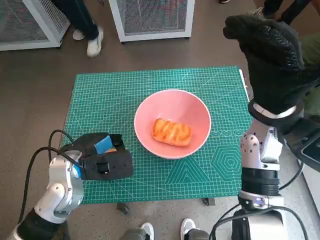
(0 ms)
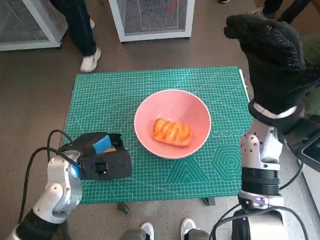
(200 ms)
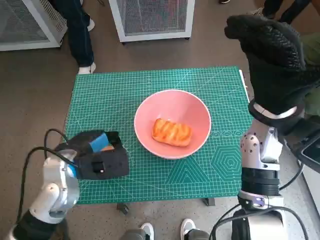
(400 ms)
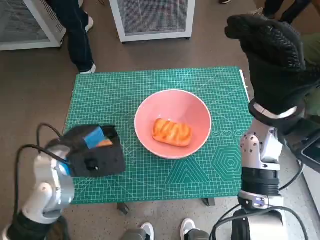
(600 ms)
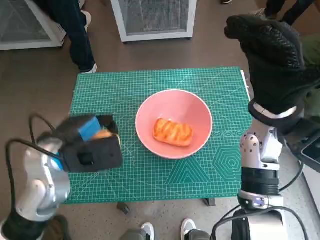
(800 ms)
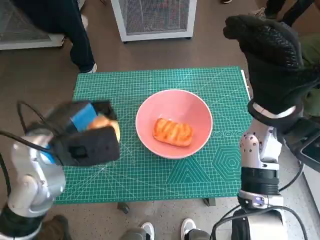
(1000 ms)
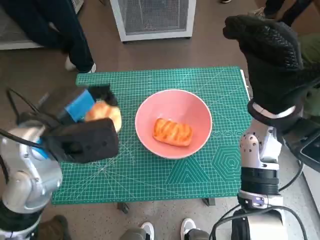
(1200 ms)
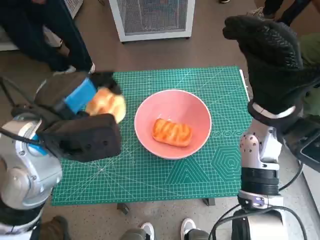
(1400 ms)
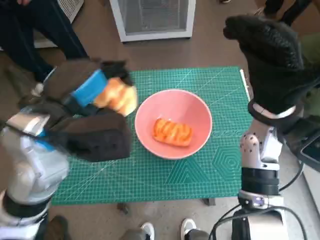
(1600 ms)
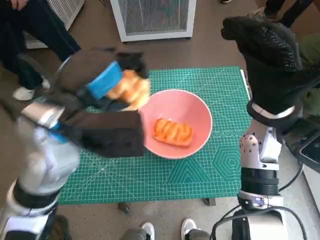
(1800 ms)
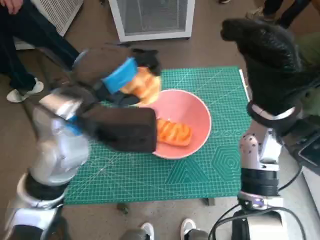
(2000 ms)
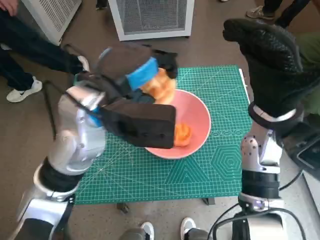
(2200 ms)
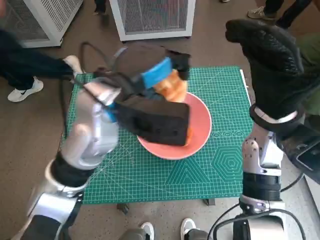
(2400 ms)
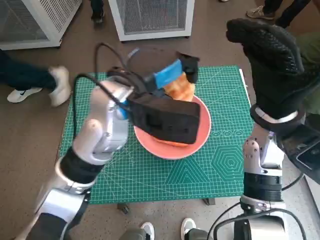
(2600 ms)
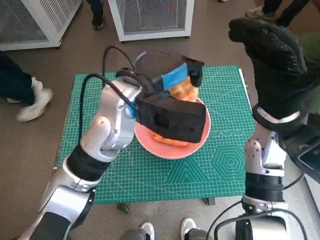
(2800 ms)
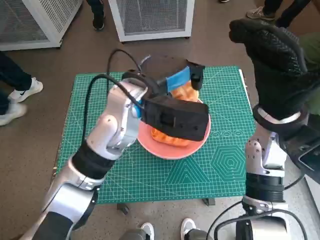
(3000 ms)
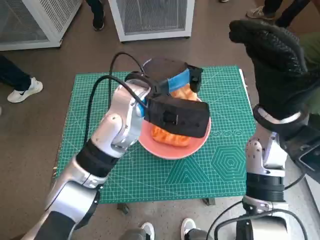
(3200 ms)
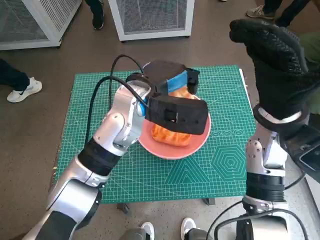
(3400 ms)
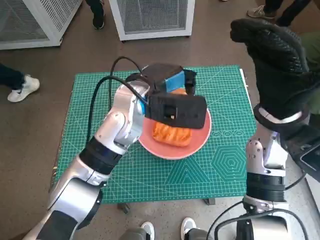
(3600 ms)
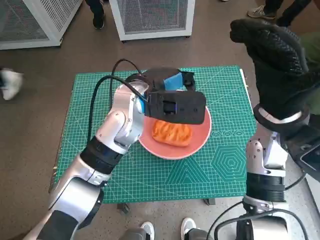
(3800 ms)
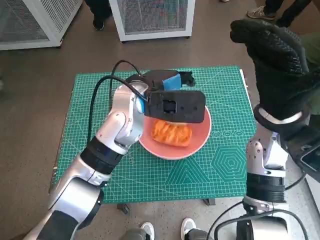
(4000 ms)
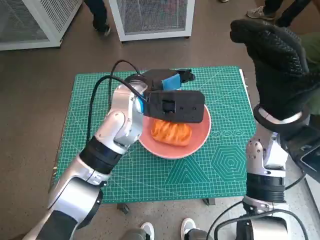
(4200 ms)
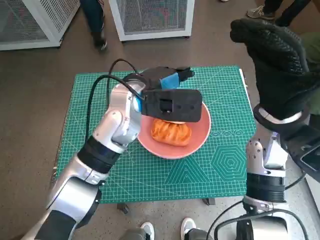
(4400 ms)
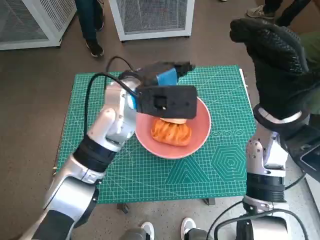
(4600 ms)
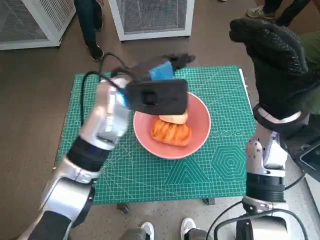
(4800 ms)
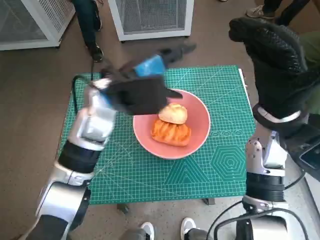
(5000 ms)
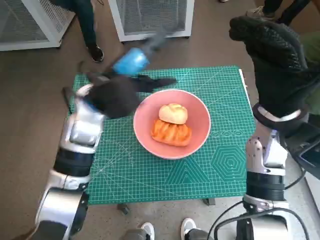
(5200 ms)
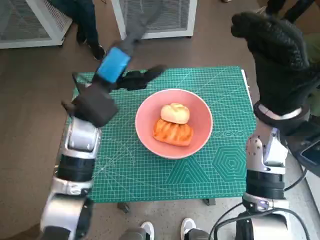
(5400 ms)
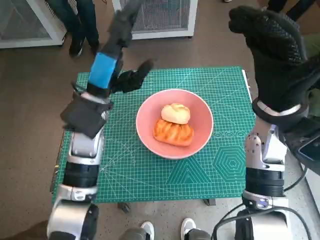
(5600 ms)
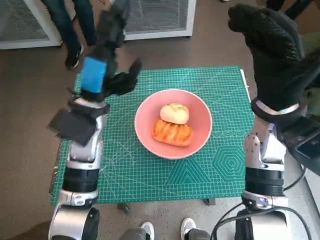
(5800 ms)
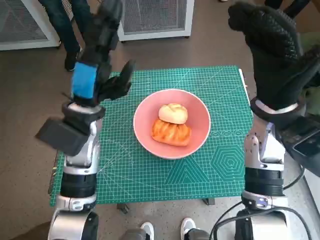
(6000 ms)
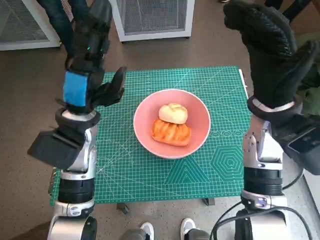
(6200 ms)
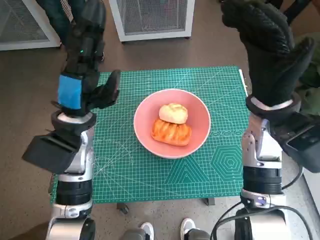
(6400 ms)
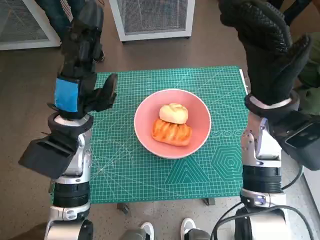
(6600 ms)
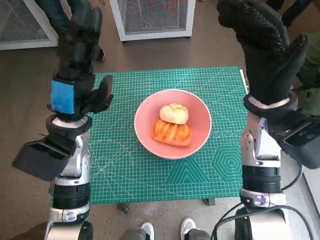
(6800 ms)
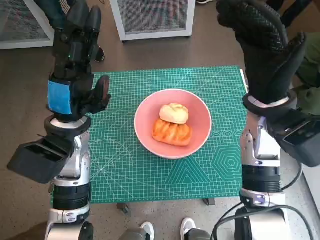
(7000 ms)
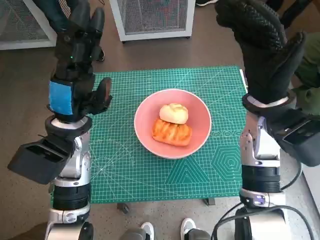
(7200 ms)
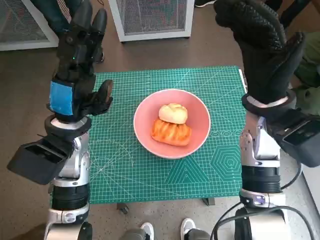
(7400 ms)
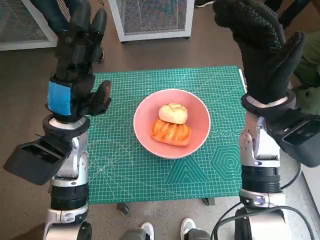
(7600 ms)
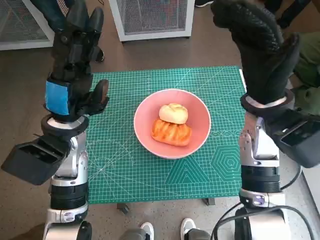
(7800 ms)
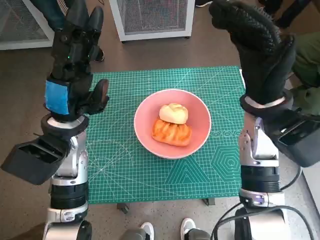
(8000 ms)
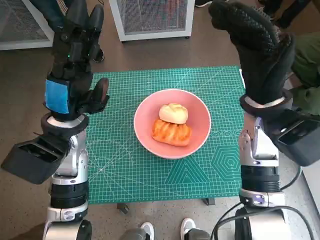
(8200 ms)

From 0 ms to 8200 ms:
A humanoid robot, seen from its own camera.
Task of the whole recording: Push the bowl into the center of the table and put the bread into the bowl.
Step, from 0 ms to 3800 ms: Place the round bread in pink bowl with left hand.
From 0 ms to 1600 ms: The left hand is displaced upward by approximately 15 cm.
From 1600 ms to 3200 ms: The left hand moves to the right and forward, approximately 15 cm.
From 5000 ms to 6600 ms: The left hand is displaced to the left and backward by approximately 10 cm.
From 6600 ms to 8200 ms: Both hands stay about where they are.

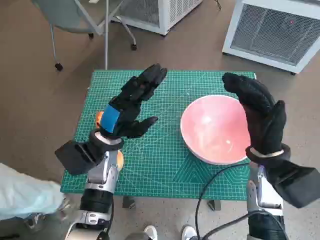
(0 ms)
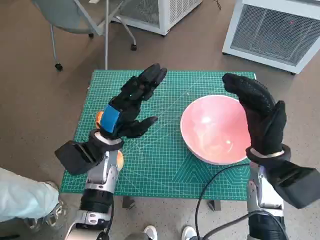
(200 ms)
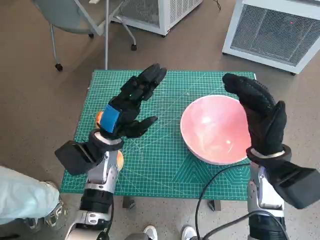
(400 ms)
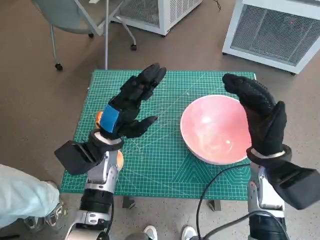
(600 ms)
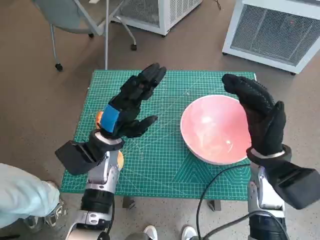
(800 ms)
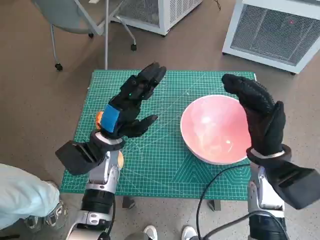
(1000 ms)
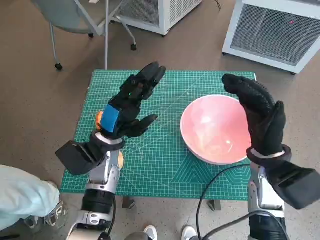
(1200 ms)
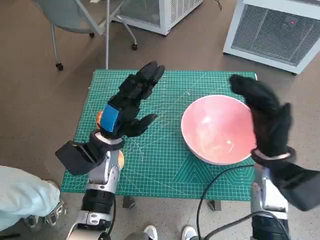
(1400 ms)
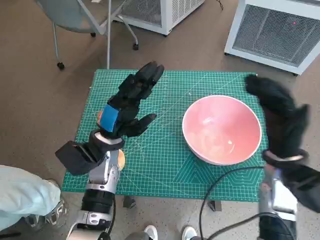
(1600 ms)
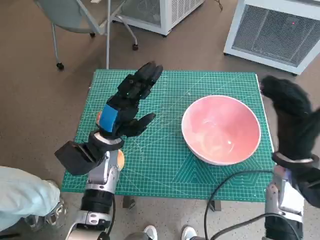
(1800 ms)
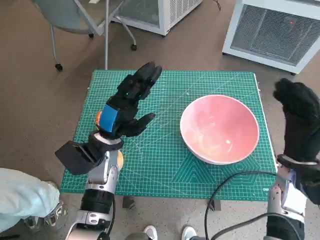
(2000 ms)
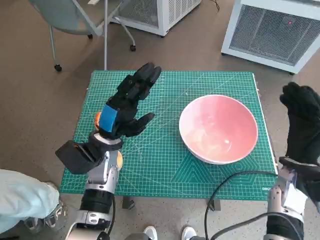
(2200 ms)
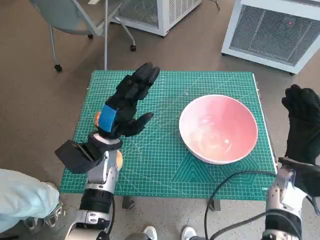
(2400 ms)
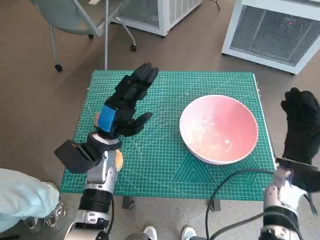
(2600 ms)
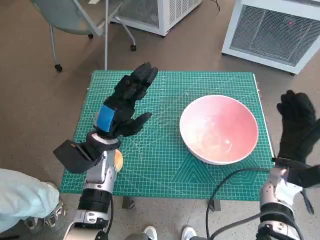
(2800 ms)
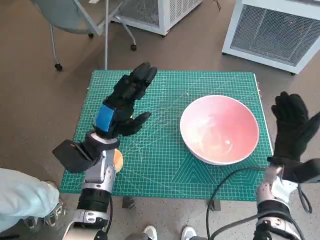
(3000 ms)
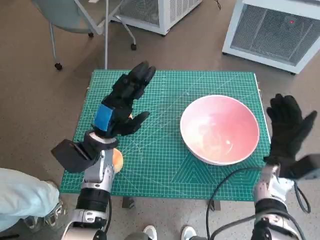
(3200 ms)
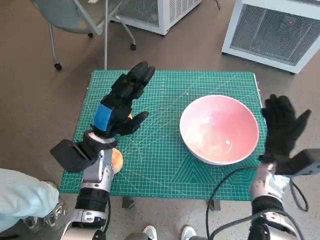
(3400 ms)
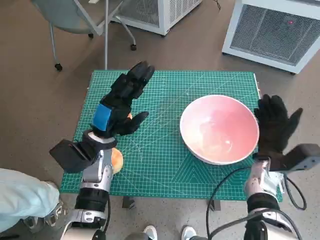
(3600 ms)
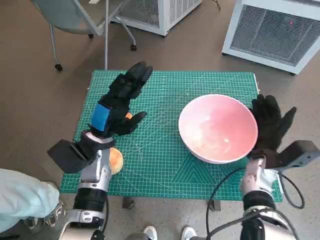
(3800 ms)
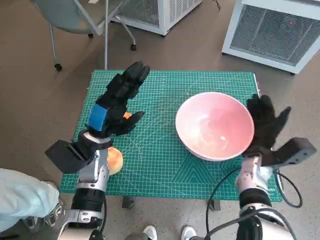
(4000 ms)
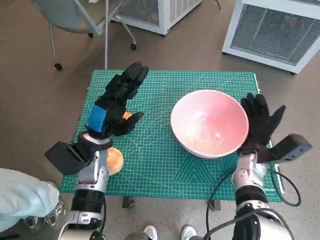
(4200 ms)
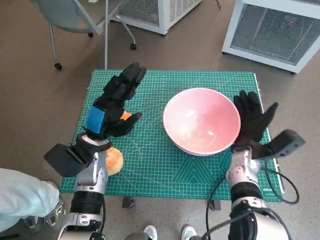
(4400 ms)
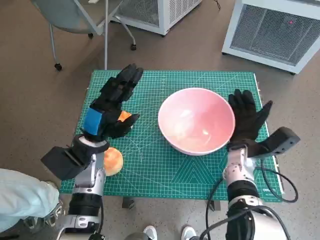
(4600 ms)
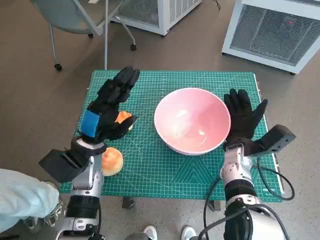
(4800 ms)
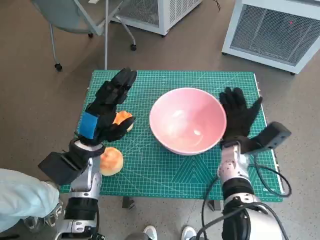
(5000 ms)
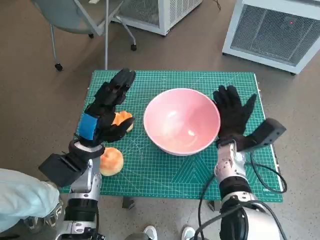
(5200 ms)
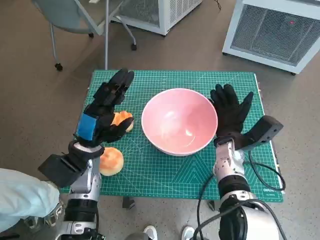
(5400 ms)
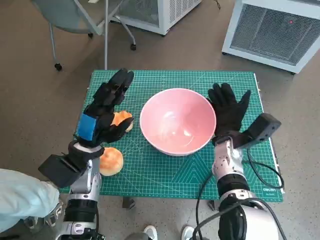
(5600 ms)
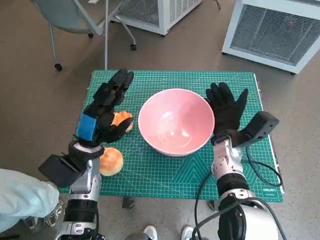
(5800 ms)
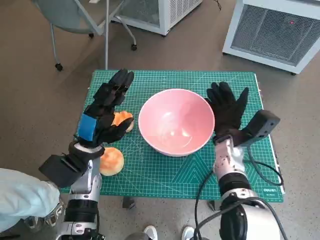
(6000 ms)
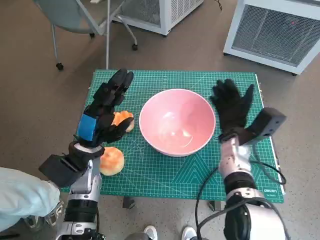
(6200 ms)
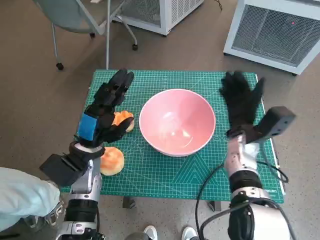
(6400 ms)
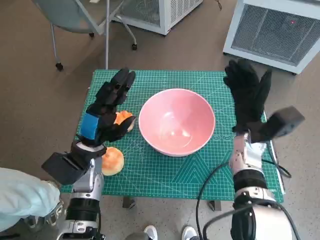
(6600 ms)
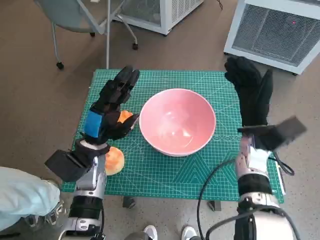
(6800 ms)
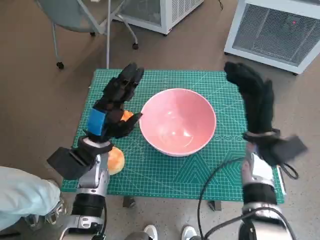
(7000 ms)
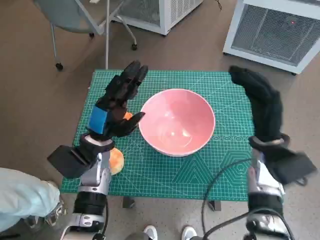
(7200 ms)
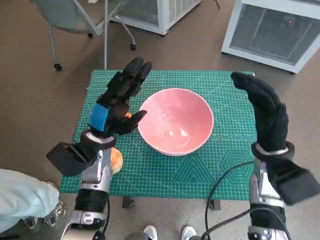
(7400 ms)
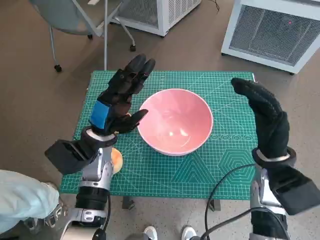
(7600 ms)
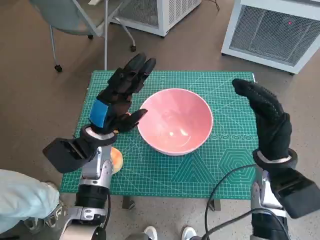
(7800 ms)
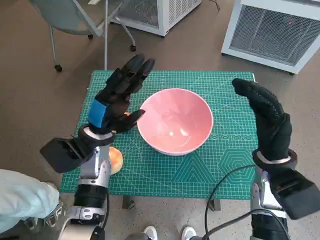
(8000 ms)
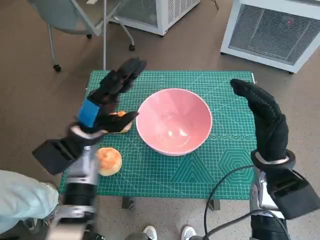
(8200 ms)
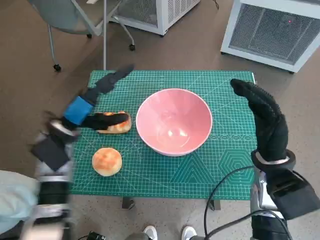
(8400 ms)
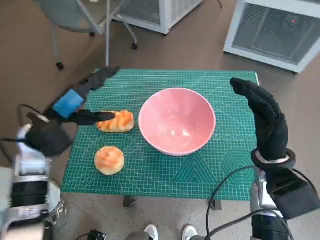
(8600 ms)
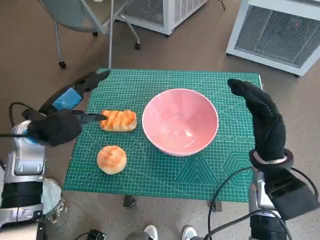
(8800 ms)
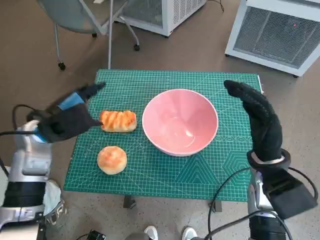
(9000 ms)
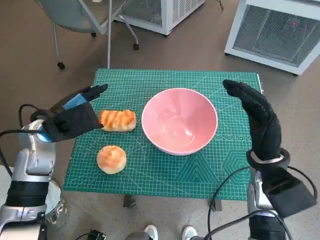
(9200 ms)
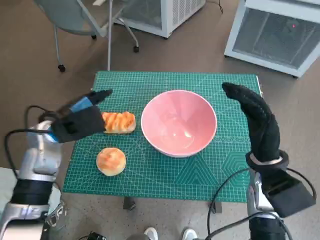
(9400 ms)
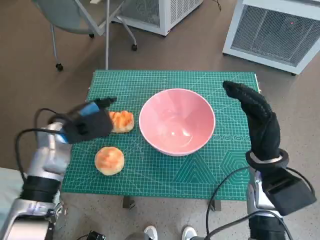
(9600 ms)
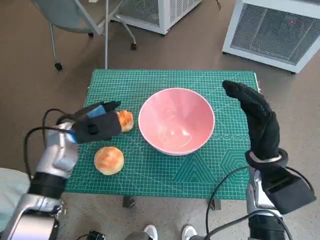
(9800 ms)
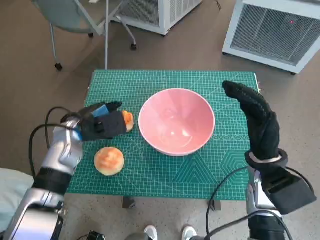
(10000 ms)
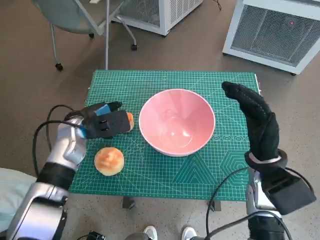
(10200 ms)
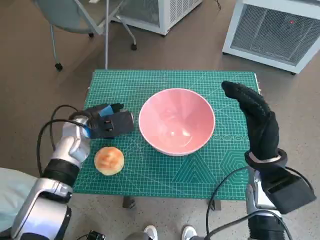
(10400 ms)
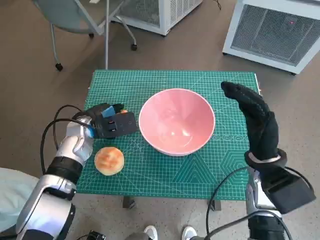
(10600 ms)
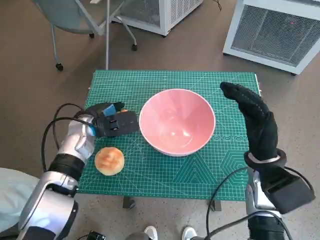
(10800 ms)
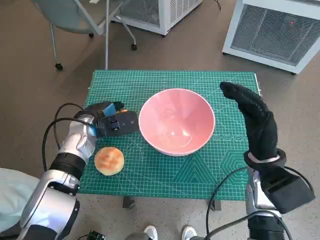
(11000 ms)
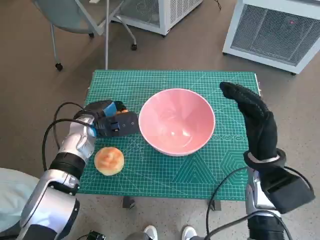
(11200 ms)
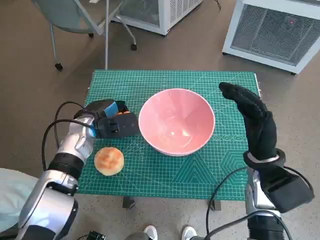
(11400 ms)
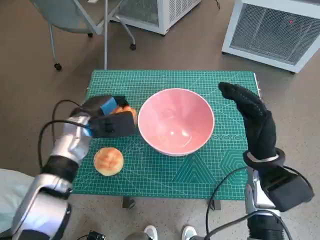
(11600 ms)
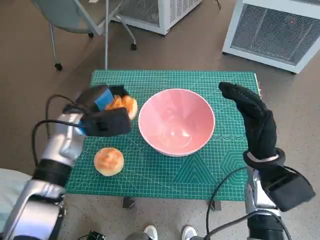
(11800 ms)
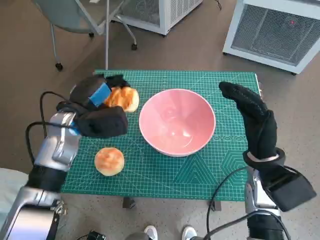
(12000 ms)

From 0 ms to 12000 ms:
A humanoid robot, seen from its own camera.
Task of the whole recording: Push the bowl into the center of the table and put the bread into the bowl.
Step, from 0 ms to 6200 ms: Move the pink bowl to the center of table with right hand.
Step, from 6400 ms to 11000 ms: Grasp the long bread with left hand.
From 1600 ms to 3000 ms: The right hand moves downward, some 10 cm.
From 3000 ms to 4400 ms: The right hand travels to the left by approximately 5 cm.
From 4400 ms to 6000 ms: The right hand moves some 5 cm.
From 6000 ms to 7600 ms: The right hand travels backward, upward and to the right by some 10 cm.
From 7600 ms to 9000 ms: The left hand moves to the left and upward, some 10 cm.
From 9000 ms to 10400 ms: The left hand travels downward and to the right by some 5 cm.

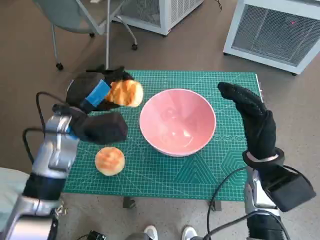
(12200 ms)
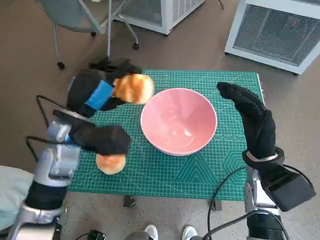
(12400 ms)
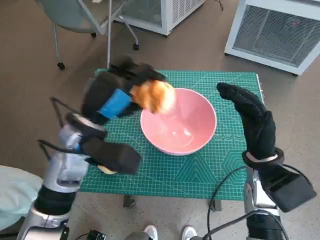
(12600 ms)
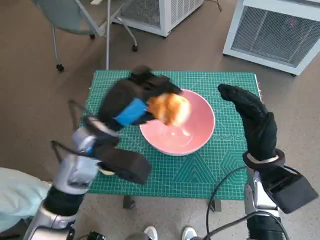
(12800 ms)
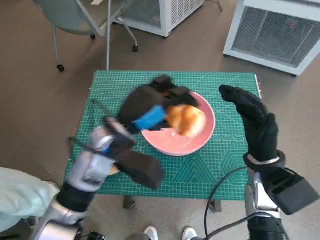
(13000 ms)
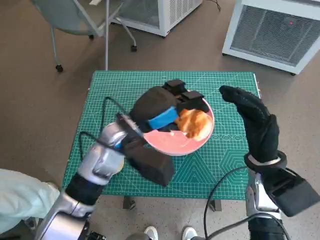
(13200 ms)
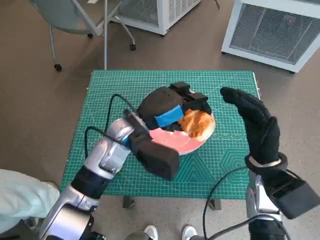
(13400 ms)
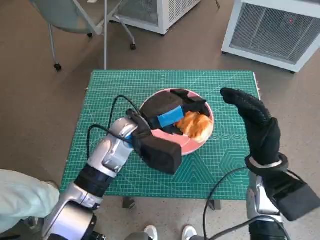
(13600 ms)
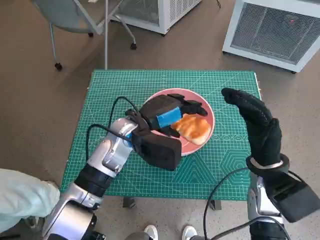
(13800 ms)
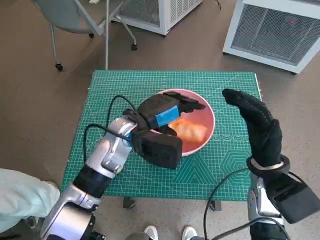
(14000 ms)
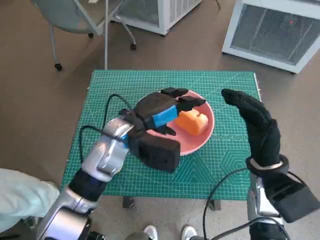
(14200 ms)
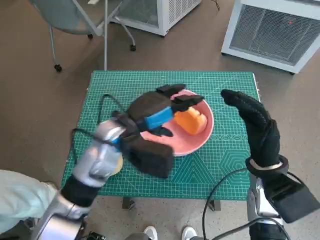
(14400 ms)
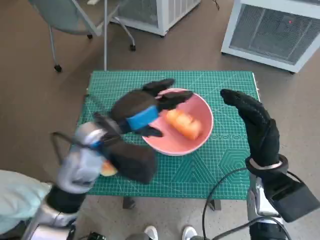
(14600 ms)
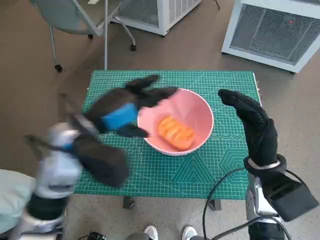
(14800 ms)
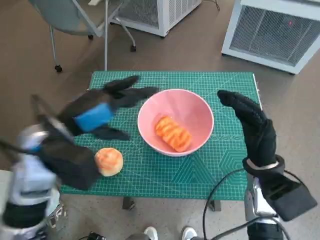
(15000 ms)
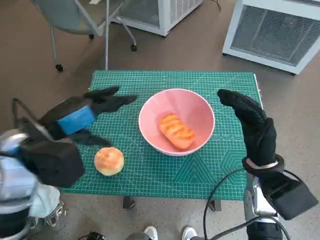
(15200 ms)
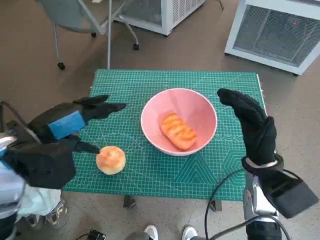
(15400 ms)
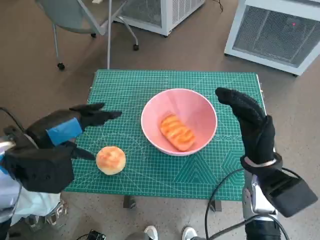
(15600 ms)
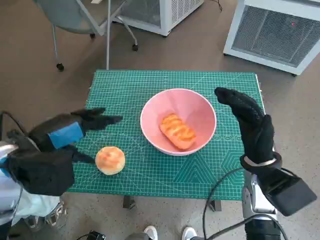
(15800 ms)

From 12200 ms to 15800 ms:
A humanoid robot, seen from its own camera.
Task of the whole recording: Push the bowl into the center of the table and put the bread into the bowl.
Step, from 12200 ms to 14000 ms: Place the long bread in pink bowl with left hand.
From 12200 ms to 14000 ms: The left hand heads to the right, covering roughly 10 cm.
From 14000 ms to 15800 ms: The left hand moves to the left, backward and upward, approximately 20 cm.
